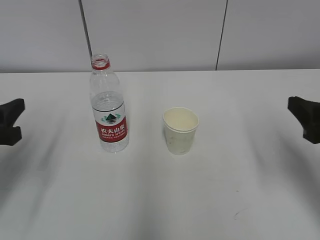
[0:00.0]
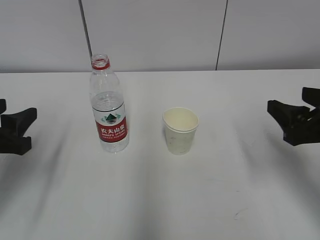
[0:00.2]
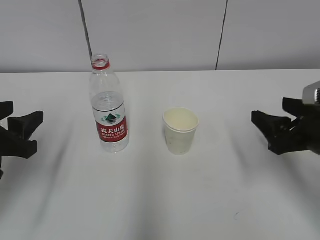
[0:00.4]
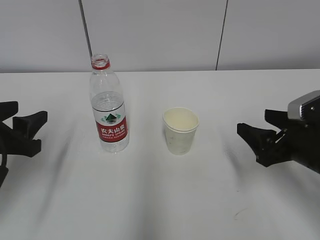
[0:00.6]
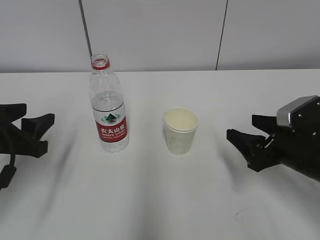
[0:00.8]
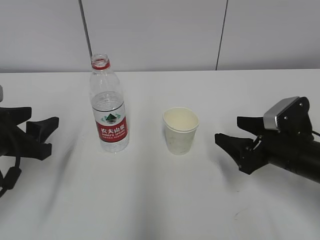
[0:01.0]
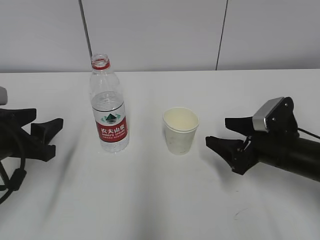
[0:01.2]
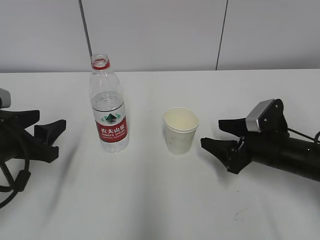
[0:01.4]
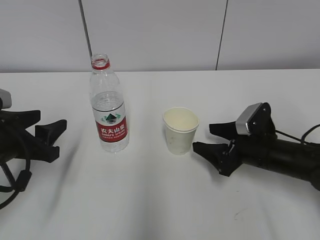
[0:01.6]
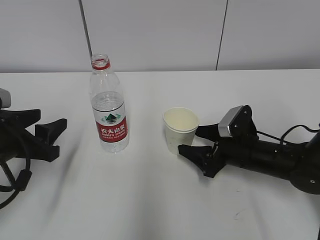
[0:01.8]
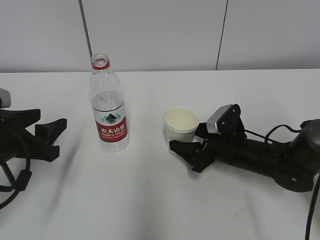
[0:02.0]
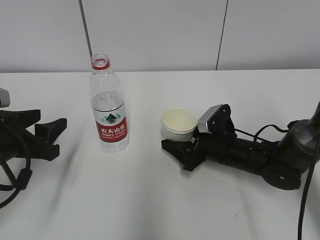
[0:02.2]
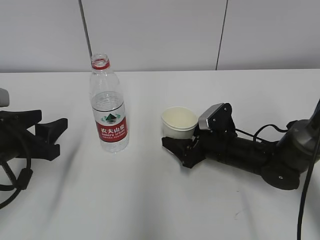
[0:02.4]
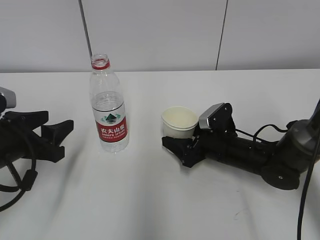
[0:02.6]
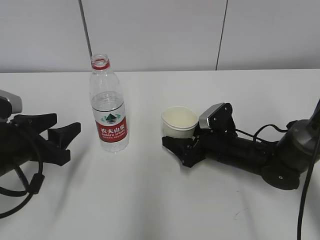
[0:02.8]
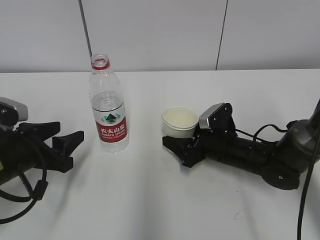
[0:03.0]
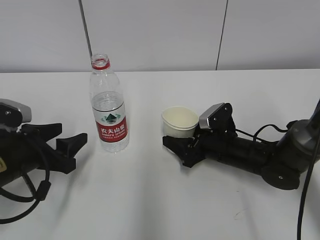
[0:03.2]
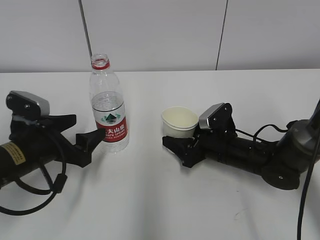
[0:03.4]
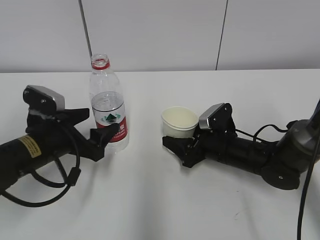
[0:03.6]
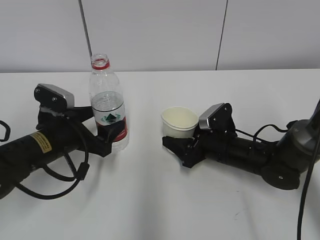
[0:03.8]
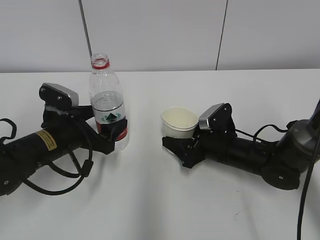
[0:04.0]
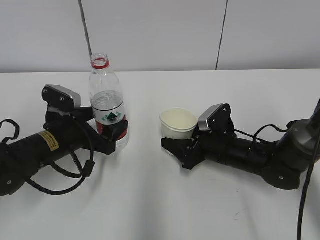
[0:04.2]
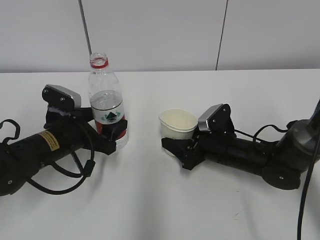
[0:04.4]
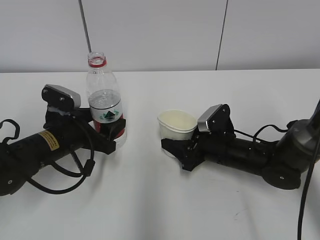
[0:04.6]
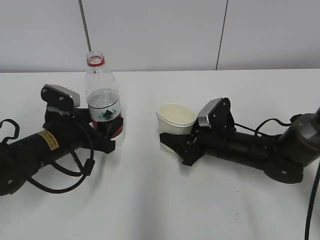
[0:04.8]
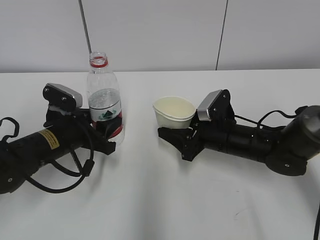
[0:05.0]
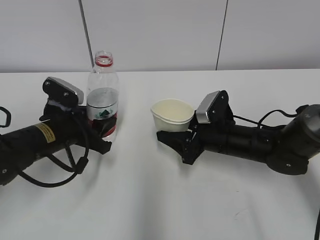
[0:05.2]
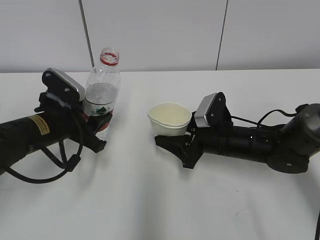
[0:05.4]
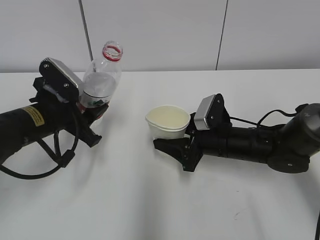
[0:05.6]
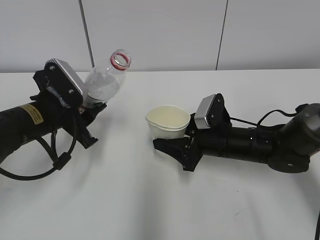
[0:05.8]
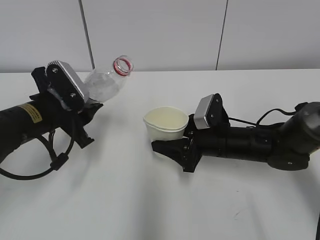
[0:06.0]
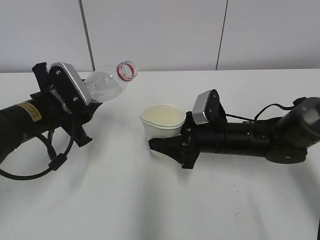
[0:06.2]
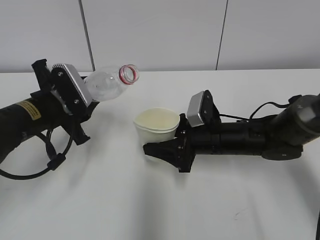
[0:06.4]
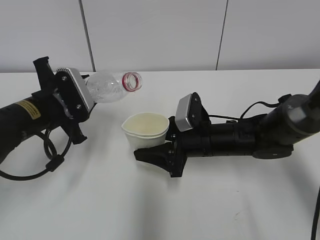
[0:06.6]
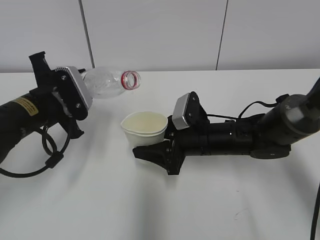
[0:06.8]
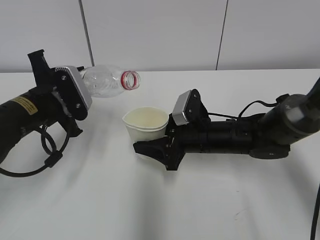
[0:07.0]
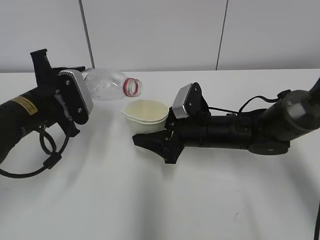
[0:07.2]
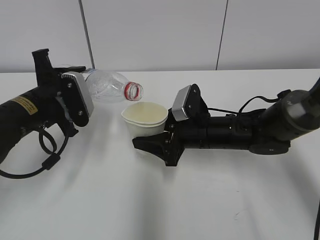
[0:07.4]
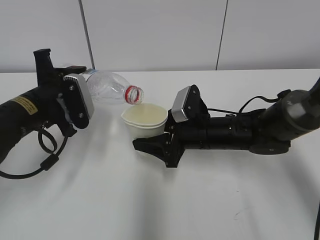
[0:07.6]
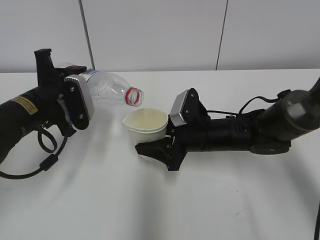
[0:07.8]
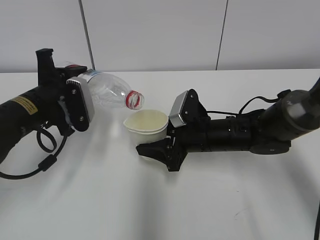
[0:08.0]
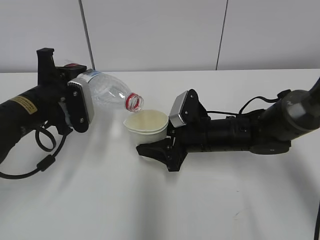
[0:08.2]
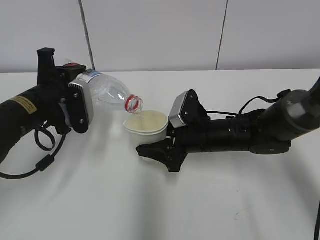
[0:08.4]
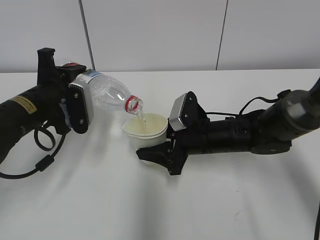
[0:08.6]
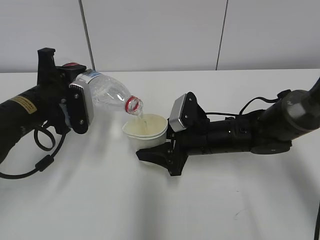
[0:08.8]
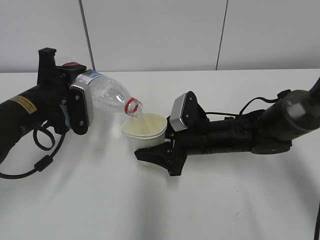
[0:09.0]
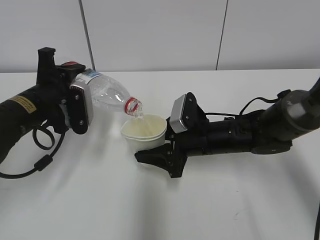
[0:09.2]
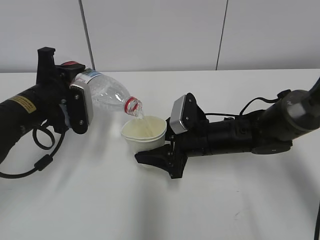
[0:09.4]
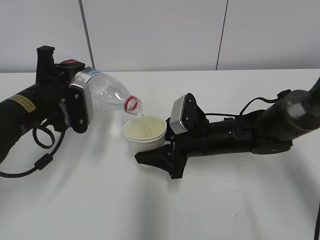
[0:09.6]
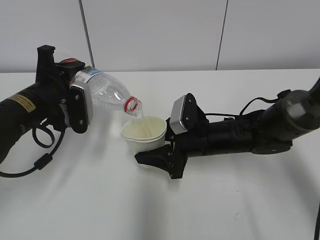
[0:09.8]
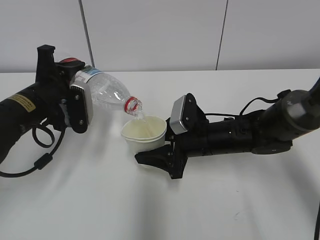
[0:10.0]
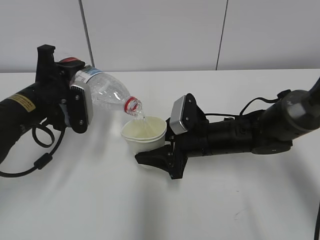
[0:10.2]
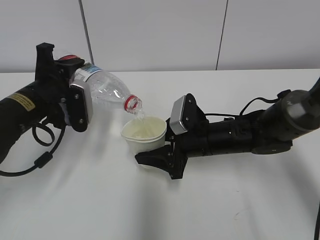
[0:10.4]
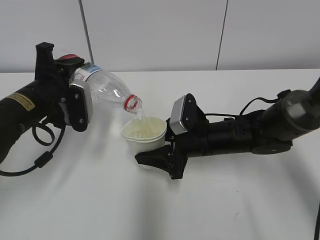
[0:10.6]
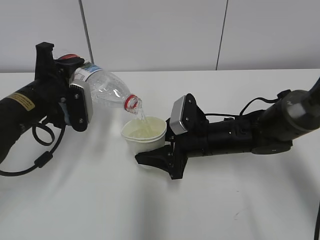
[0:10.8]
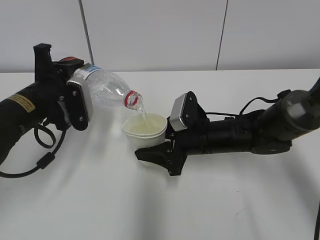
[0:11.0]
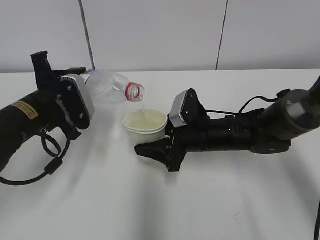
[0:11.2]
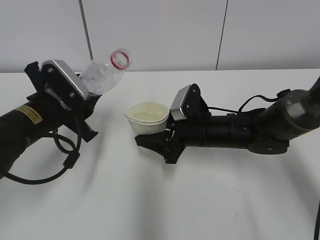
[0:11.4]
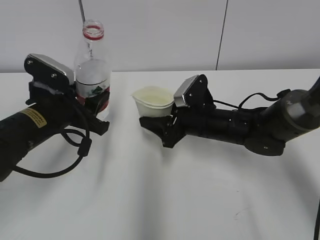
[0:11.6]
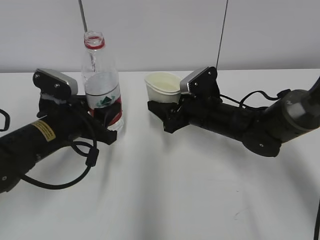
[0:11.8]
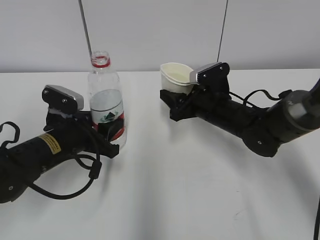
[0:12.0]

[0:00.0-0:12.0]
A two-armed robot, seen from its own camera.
Step, 0:00.0 to 0:02.6: Grab the paper cup with the right hand.
Step, 0:02.8 to 0:03.0: Grab the water bottle with the left hand.
Step, 0:03.2 to 0:05.6: Lift the paper cup with the right hand.
Step, 0:05.8 to 0:08.2: Fill water with the right hand.
Step, 0:05.8 to 0:08.2: Pour water with the left hand.
Step, 0:09.0 to 0:09.8: Place the paper cup with the right hand.
0:00.0 to 0:01.6: The left gripper moves downward, roughly 5 cm. The right gripper goes approximately 20 cm downward and forward.
0:01.6 to 0:03.0: The right gripper shifts about 5 cm to the left.
0:03.0 to 0:04.4: The left gripper moves forward and to the right, approximately 10 cm, and opens up.
0:04.4 to 0:06.0: The left gripper heads upward, covering approximately 5 cm, and closes its fingers.
0:07.6 to 0:09.0: There are only small adjustments of the grippers.
0:09.0 to 0:10.4: Neither gripper changes place.
0:10.4 to 0:12.0: The right gripper shifts by approximately 5 cm. Meanwhile the left gripper goes approximately 5 cm downward.

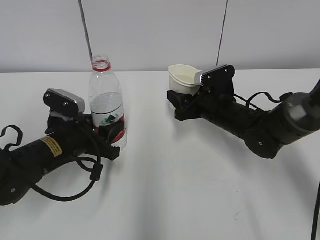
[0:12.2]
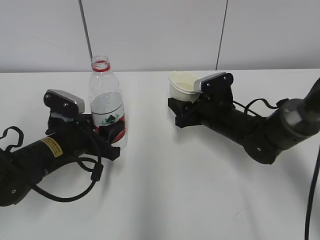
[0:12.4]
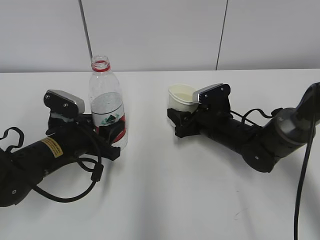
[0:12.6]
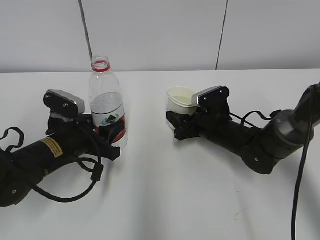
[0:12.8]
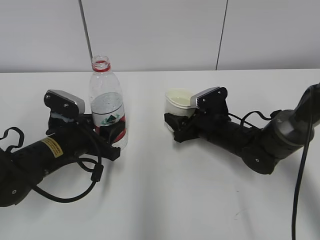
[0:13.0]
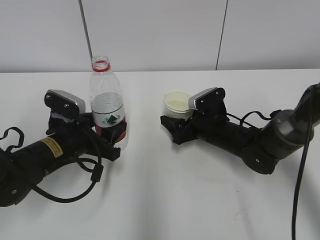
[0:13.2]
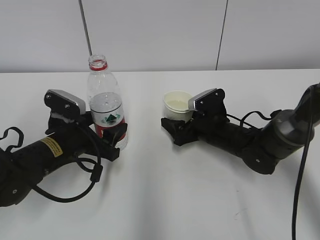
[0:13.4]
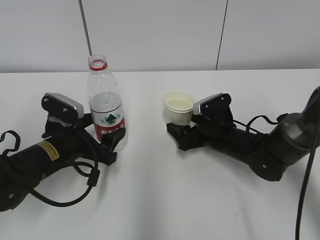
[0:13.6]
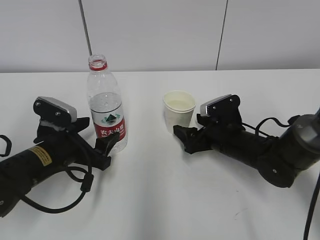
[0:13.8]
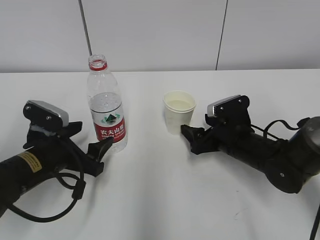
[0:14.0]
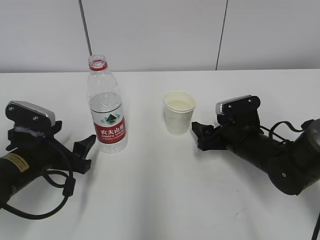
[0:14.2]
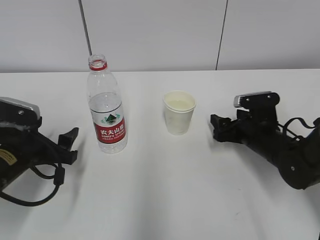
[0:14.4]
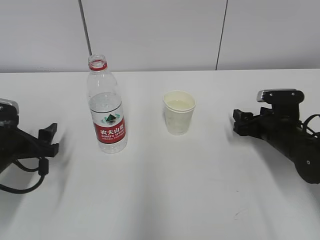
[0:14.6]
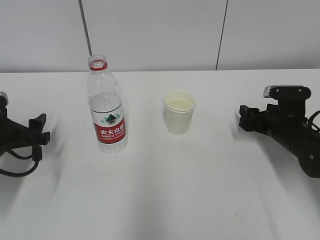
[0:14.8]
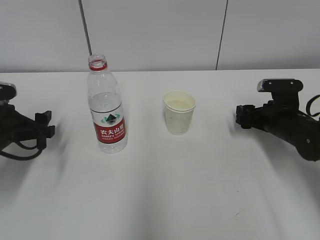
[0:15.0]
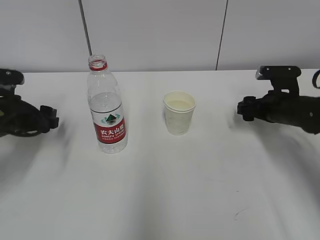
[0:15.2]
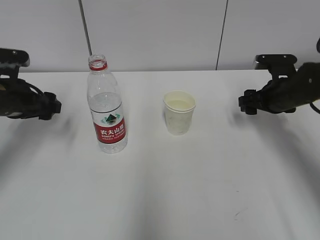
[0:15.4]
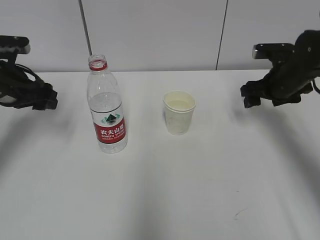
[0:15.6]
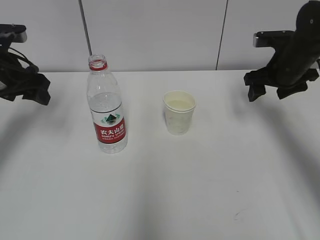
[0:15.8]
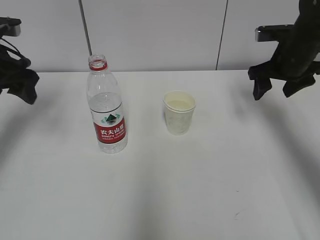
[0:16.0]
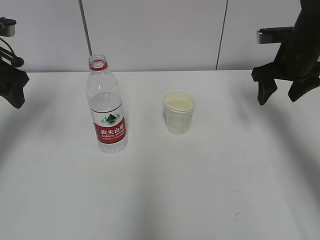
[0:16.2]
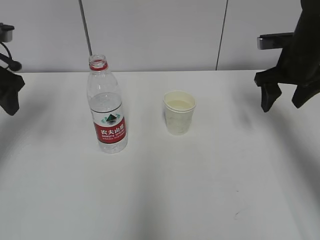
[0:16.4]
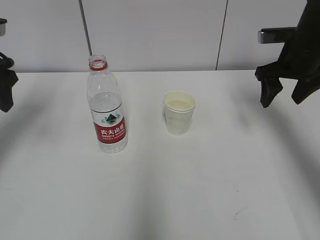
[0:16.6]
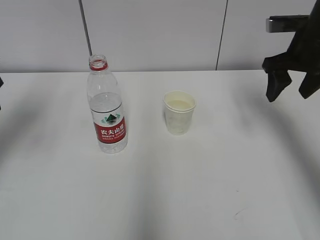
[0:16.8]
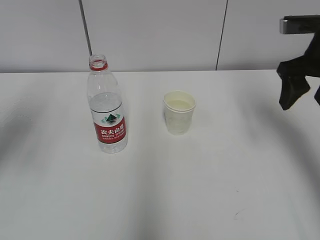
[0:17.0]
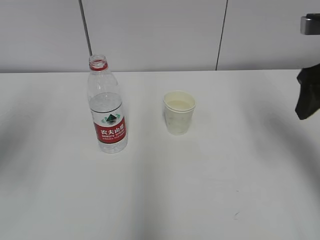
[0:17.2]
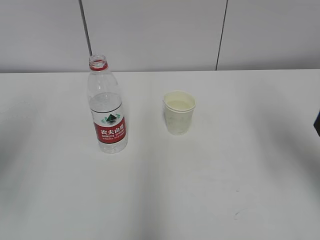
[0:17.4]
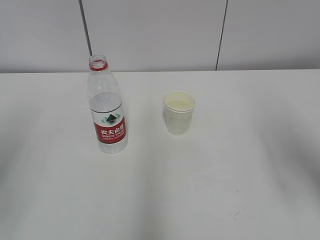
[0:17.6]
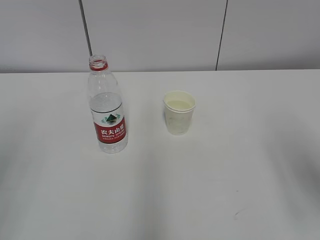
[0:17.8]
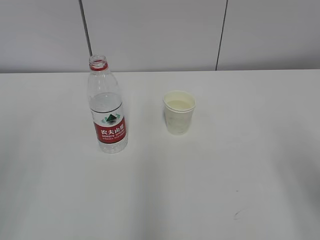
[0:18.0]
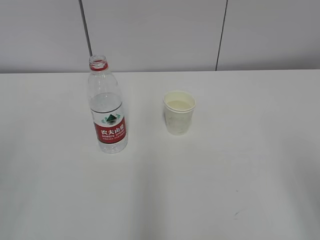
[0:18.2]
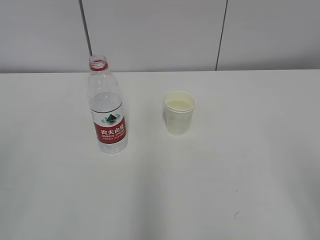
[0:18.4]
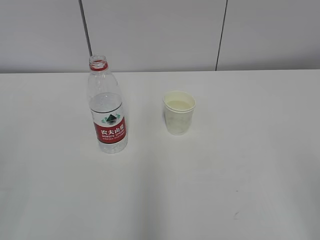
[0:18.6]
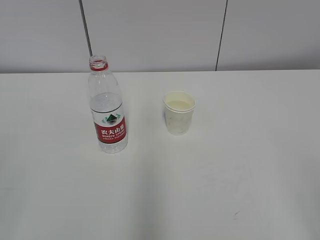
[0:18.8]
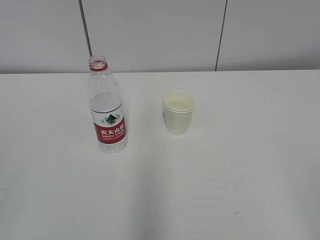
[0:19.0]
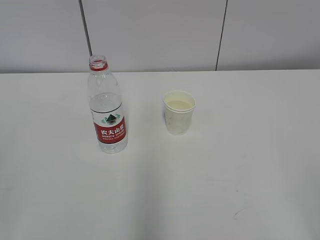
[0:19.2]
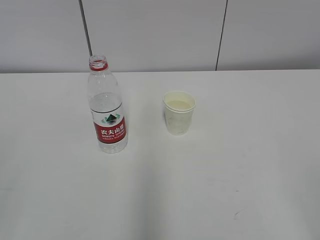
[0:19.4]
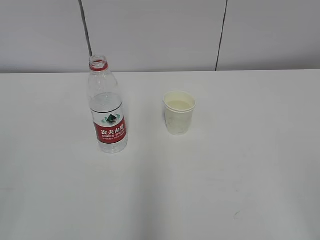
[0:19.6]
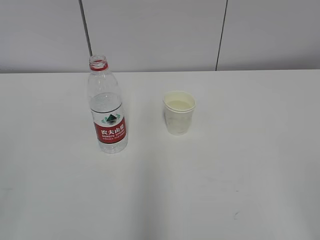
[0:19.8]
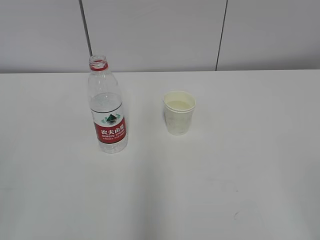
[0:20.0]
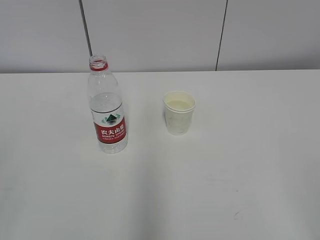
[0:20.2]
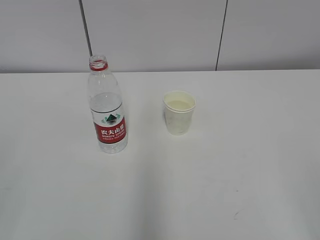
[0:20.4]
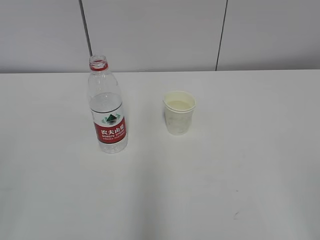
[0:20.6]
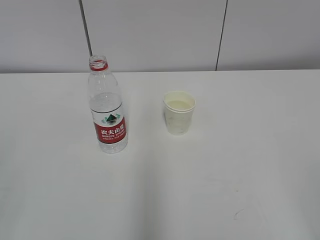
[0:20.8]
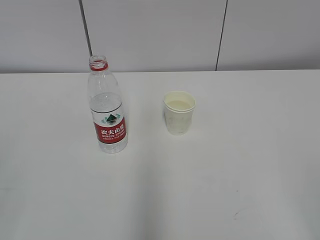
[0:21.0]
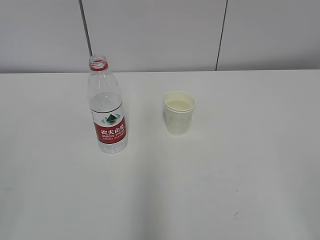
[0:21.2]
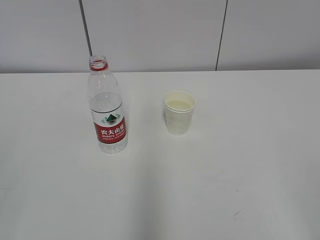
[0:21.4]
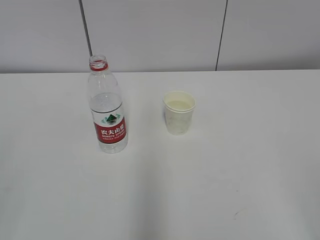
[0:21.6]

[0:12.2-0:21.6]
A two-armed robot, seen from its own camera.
0:12.2 to 0:13.8: The right gripper moves some 5 cm, and opens up. Meanwhile the left gripper opens its fingers.
0:13.8 to 0:15.4: The left gripper moves to the left, upward and forward, some 15 cm. The right gripper goes approximately 15 cm to the right and upward.
0:15.4 to 0:17.0: Both grippers travel together upward and backward, approximately 15 cm.
0:17.0 to 0:18.4: Both grippers move backward, approximately 25 cm.
0:20.0 to 0:21.6: Neither gripper changes place.

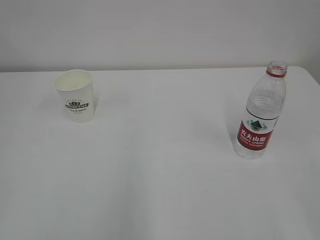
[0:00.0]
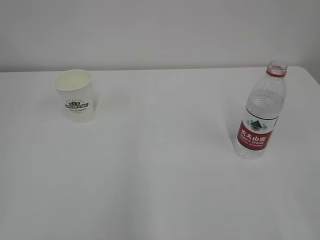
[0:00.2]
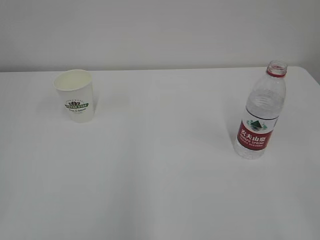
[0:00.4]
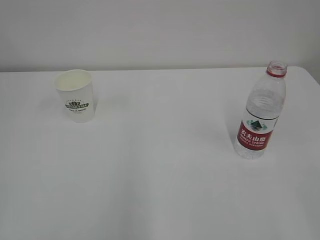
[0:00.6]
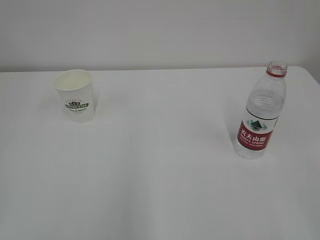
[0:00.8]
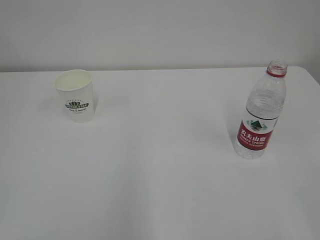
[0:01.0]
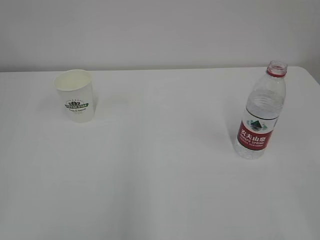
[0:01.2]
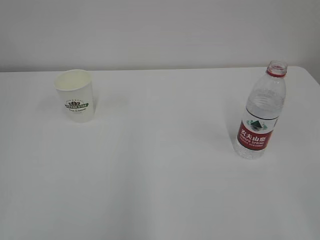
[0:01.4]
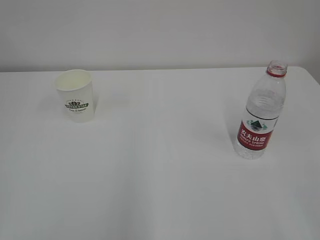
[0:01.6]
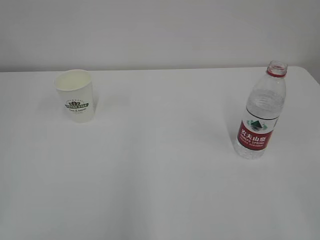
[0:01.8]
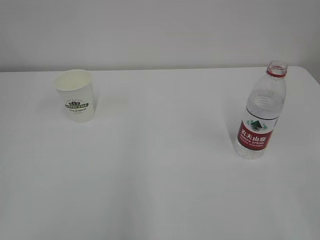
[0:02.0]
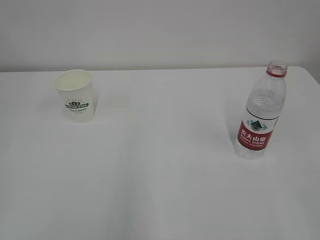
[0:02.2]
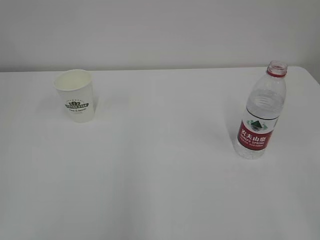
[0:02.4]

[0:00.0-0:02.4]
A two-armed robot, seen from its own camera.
0:01.2 to 0:02.4: Both grippers stay put.
